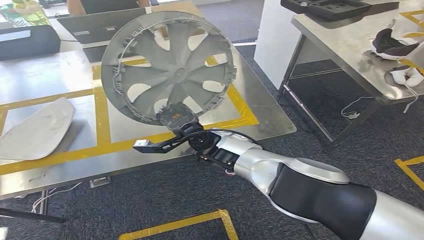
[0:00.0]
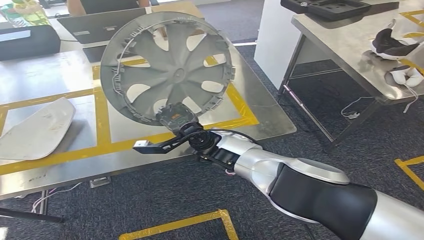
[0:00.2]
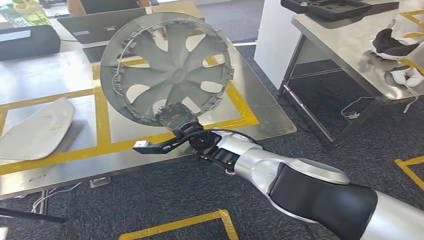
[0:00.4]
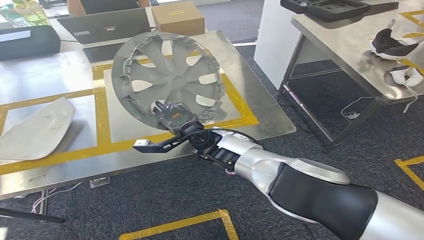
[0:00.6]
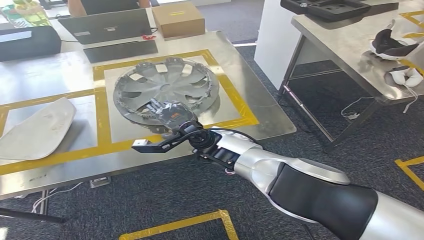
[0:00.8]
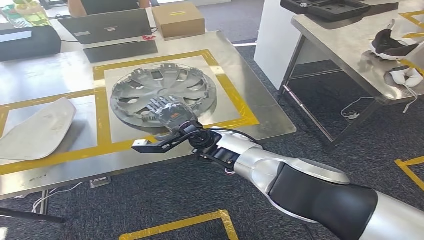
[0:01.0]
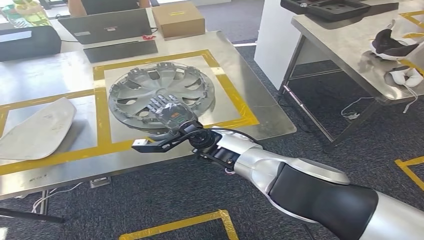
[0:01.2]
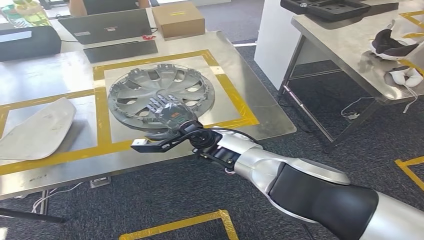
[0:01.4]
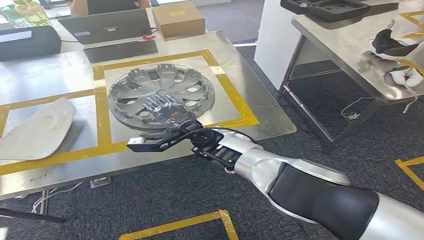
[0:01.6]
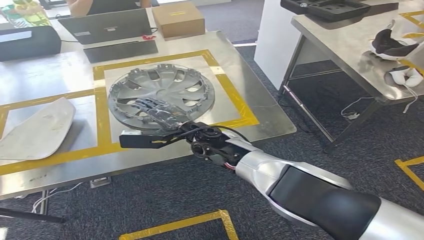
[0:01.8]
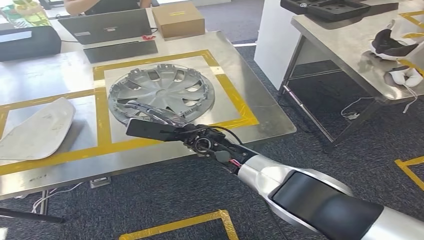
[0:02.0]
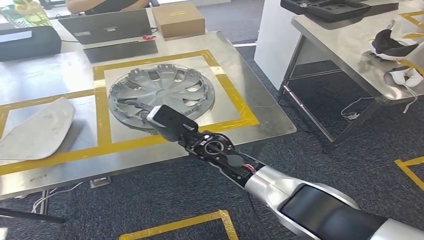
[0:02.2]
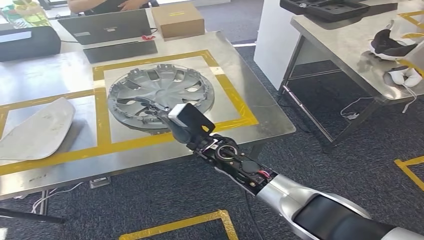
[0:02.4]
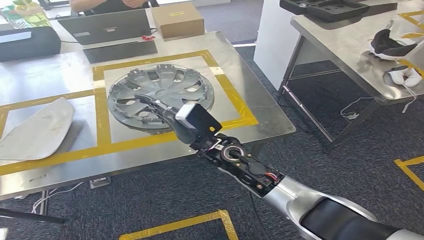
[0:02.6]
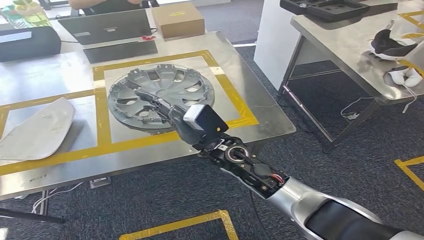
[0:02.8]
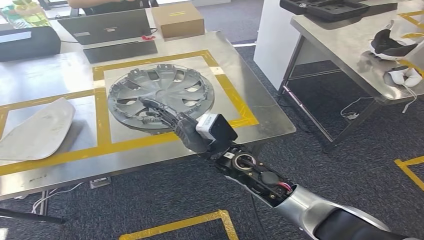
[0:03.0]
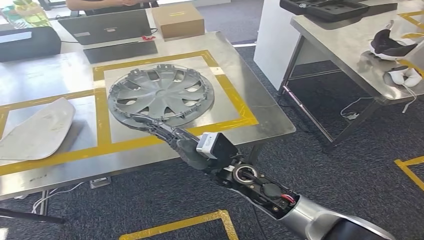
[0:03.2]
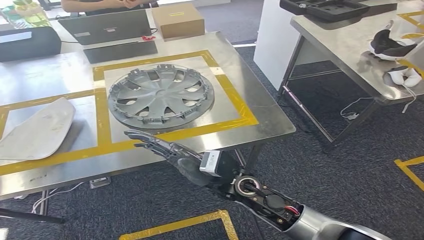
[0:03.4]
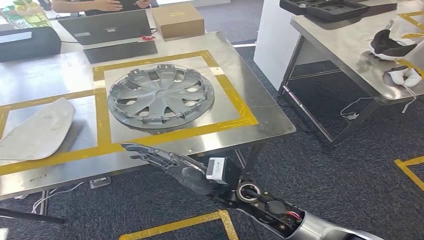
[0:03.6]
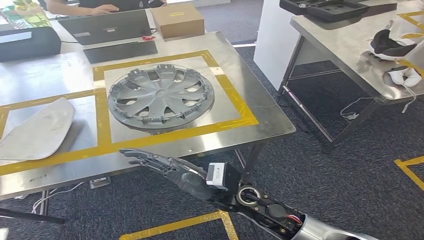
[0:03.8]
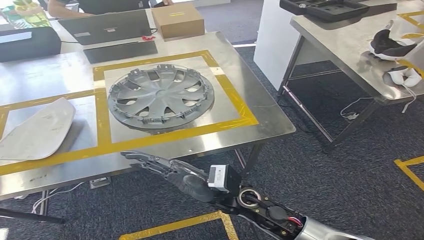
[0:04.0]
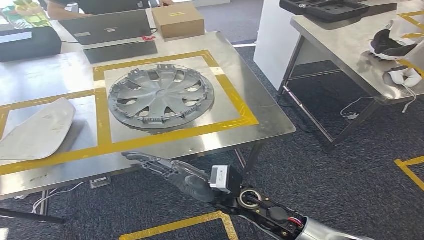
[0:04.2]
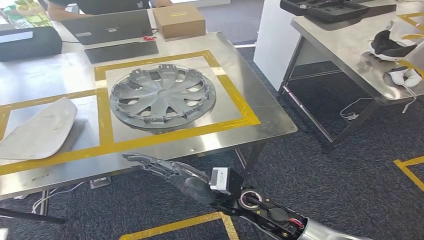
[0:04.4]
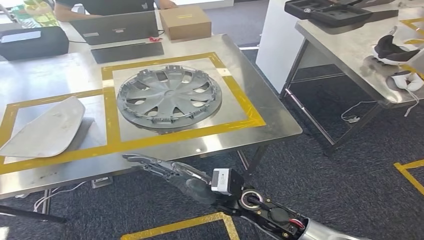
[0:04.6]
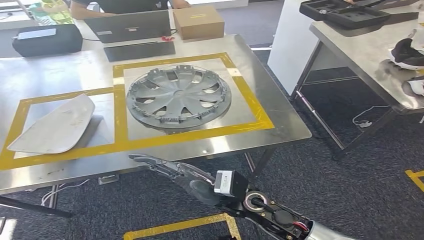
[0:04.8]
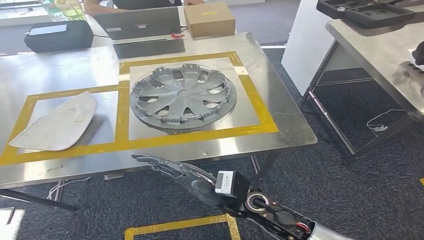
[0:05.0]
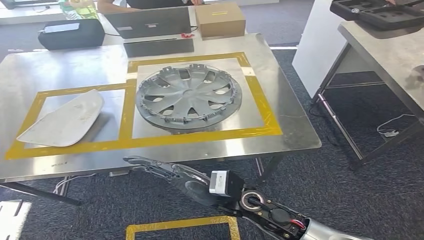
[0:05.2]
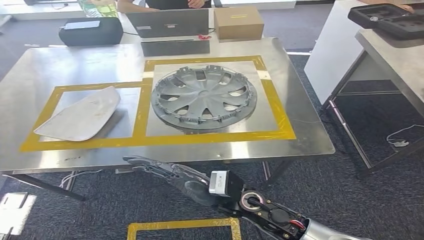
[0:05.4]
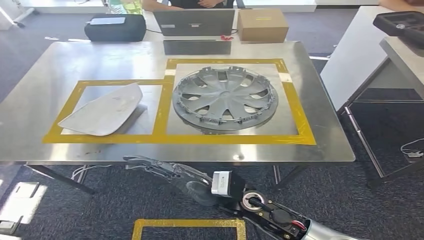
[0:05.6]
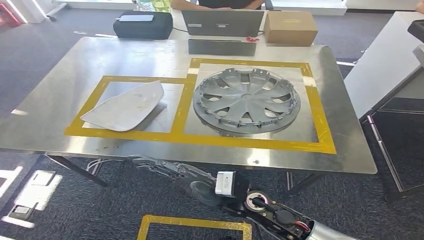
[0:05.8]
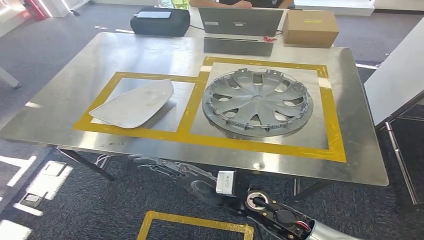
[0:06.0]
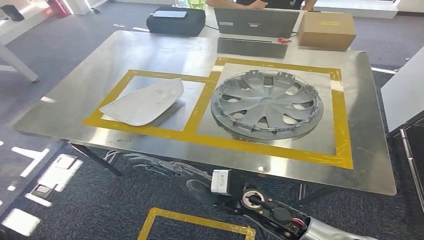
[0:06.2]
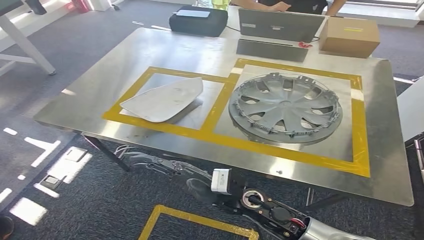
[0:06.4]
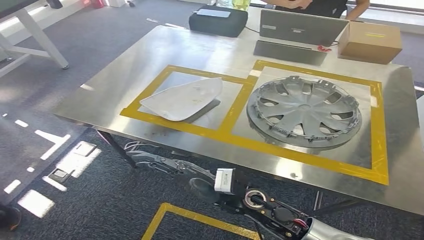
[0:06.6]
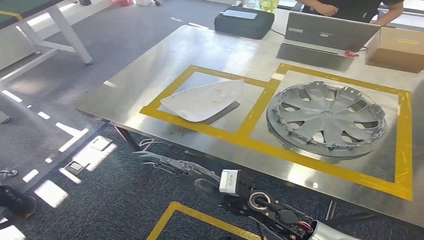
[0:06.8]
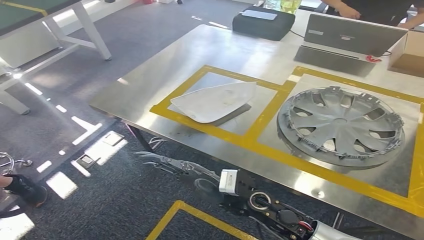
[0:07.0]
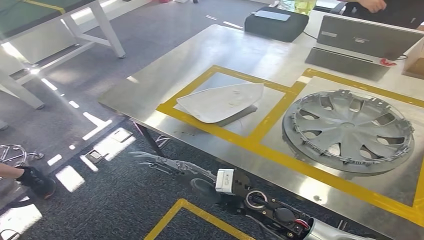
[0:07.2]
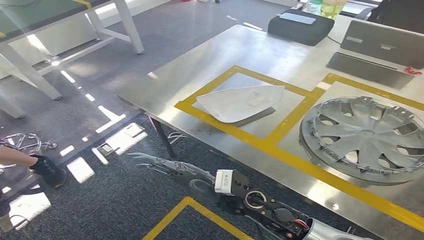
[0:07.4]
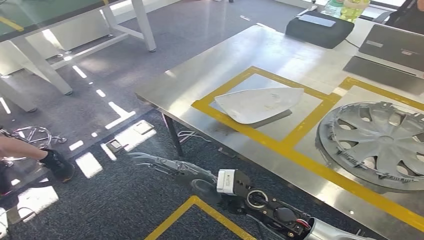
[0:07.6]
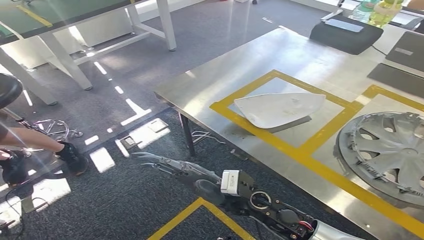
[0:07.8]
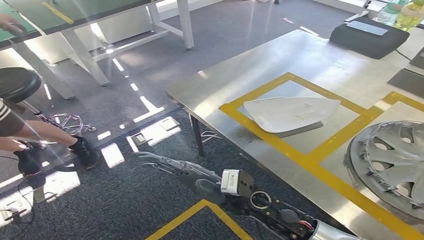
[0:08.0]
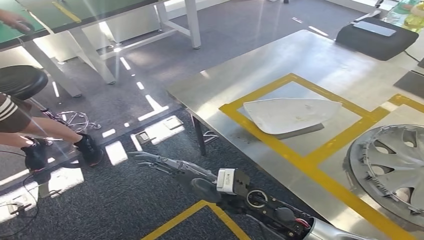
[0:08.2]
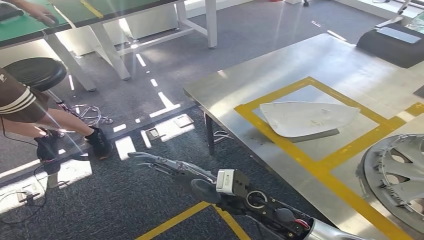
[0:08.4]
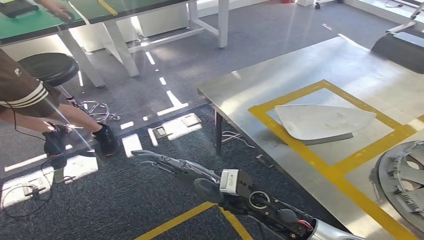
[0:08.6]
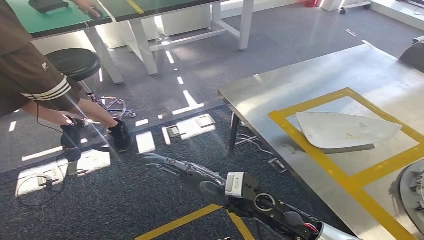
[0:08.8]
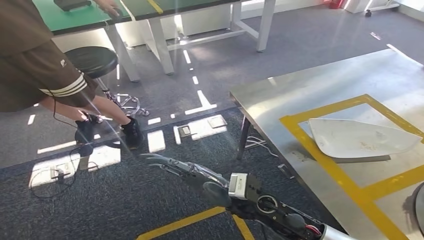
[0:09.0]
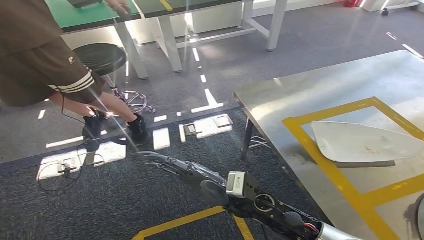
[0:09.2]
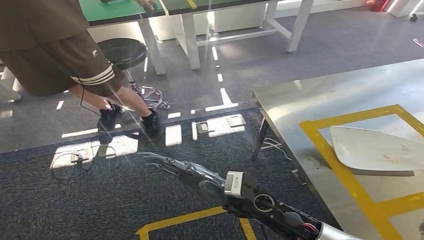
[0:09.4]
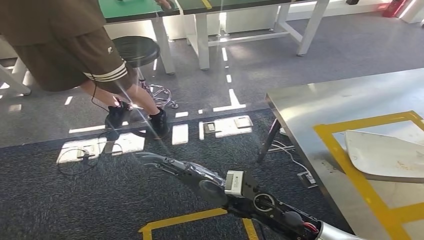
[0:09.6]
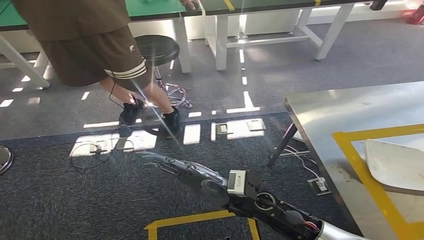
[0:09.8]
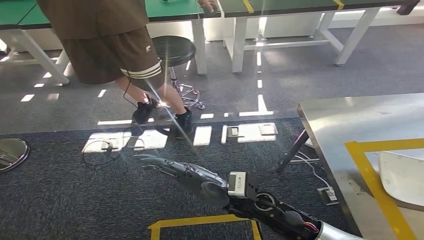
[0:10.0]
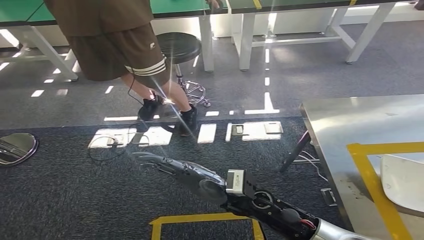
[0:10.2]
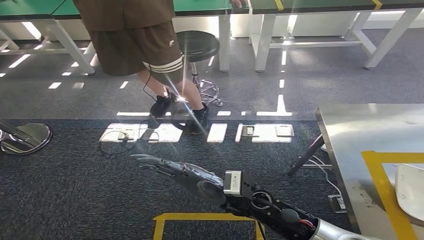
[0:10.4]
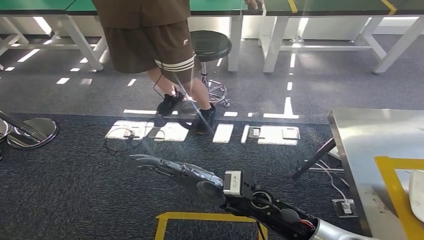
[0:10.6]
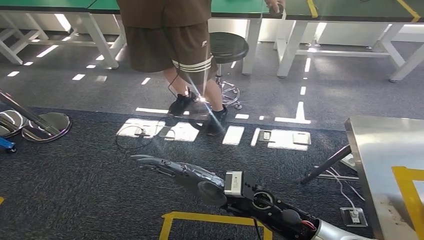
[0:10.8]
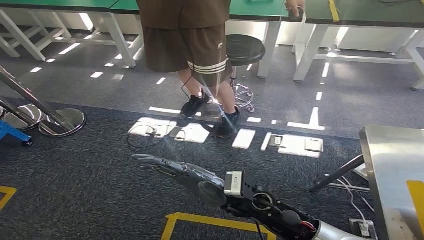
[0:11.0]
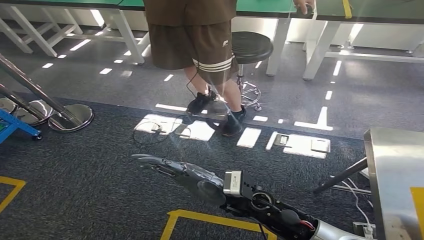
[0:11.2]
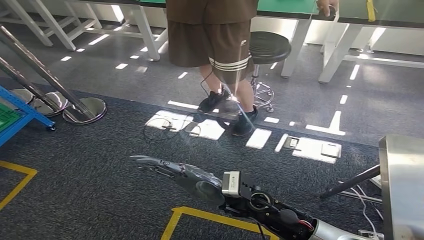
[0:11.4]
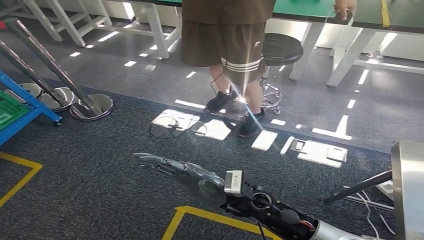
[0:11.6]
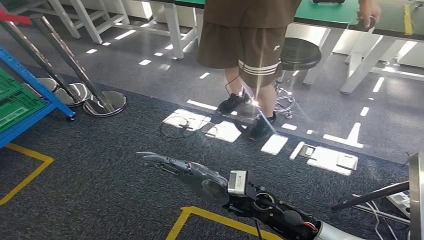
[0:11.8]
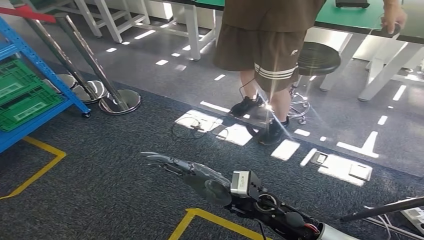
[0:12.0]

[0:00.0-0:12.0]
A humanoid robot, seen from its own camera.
0:00.0 to 0:01.6: The hands make only small movements.
0:01.6 to 0:03.0: The right hand heads backward, covering about 5 cm.
0:03.0 to 0:04.4: The right hand travels backward and downward by approximately 10 cm.

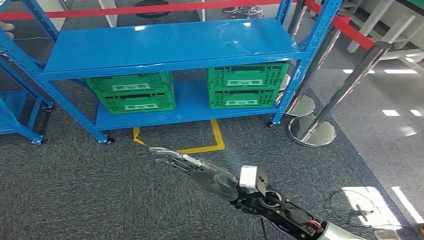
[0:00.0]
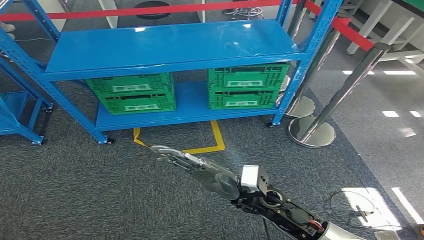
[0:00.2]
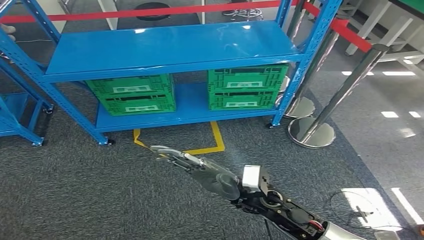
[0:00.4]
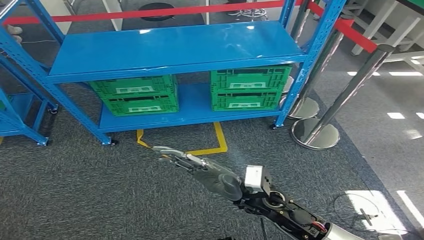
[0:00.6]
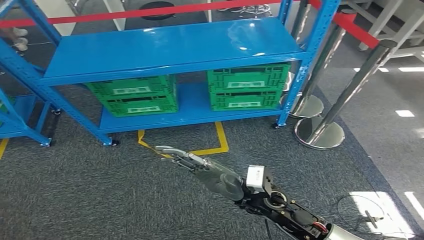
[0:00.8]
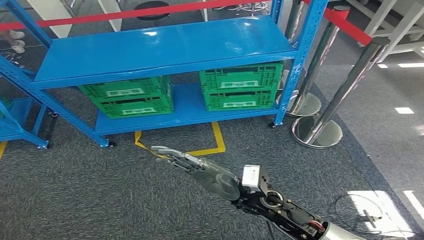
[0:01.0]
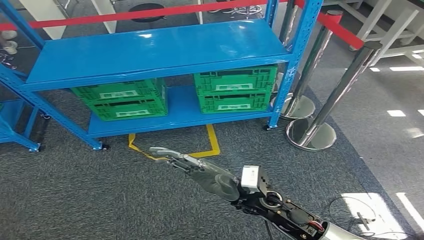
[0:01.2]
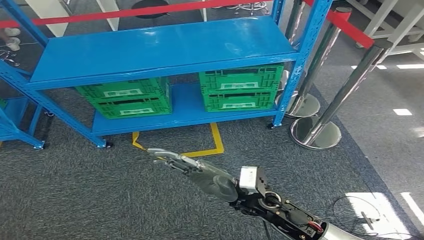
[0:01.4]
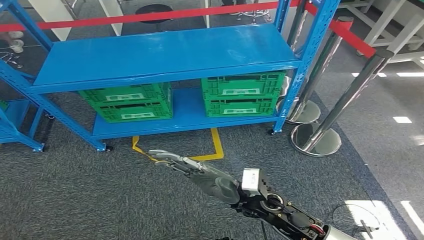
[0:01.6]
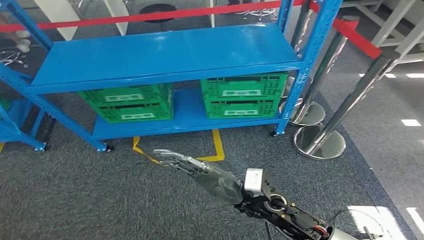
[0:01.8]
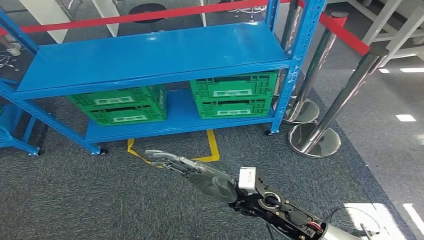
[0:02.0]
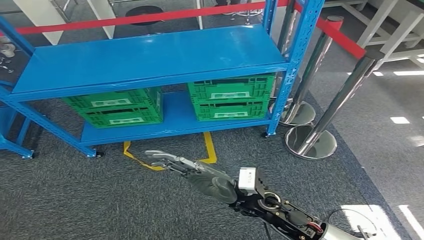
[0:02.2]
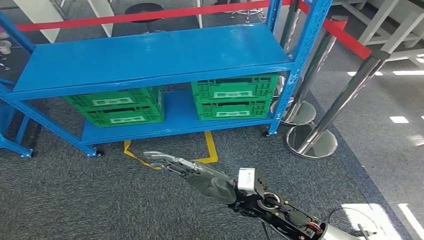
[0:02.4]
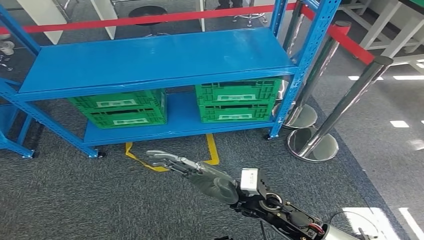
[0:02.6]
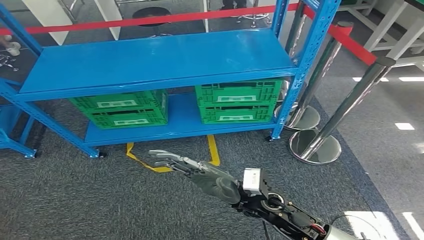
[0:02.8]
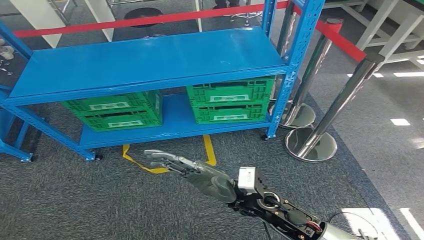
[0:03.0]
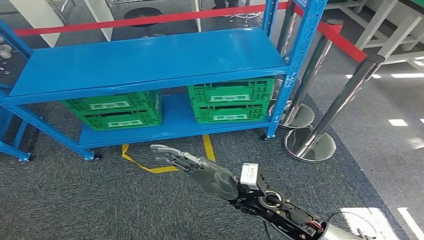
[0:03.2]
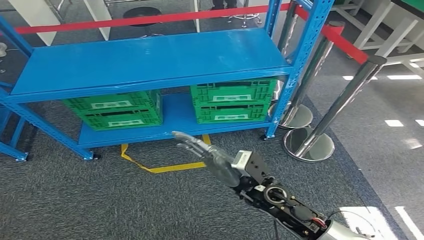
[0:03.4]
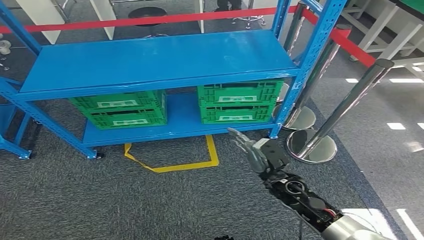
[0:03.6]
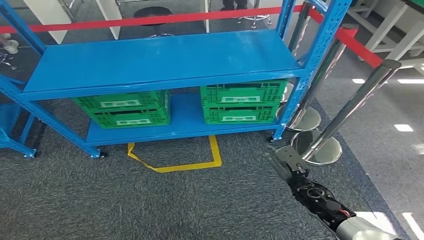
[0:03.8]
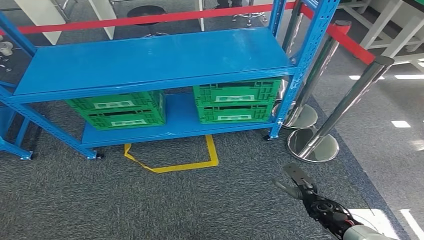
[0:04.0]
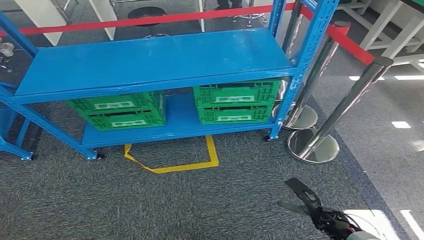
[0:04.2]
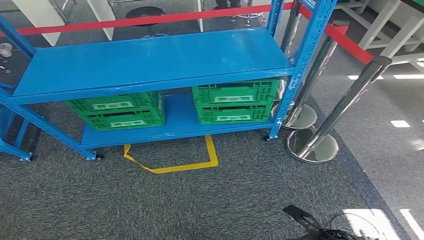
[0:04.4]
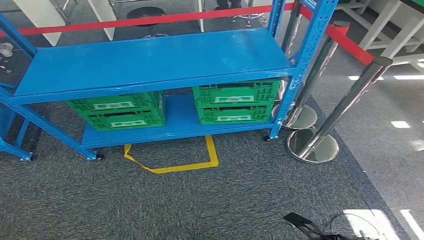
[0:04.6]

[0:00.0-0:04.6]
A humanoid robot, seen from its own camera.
0:03.0 to 0:04.6: The right hand heads downward, to the right and backward, covering approximately 35 cm.
